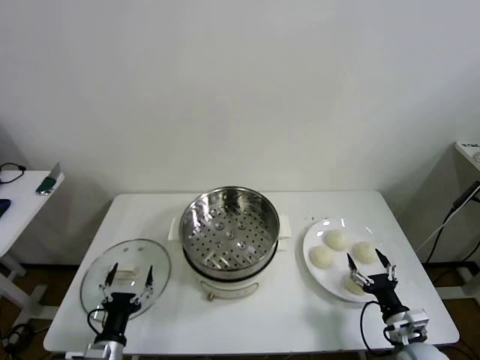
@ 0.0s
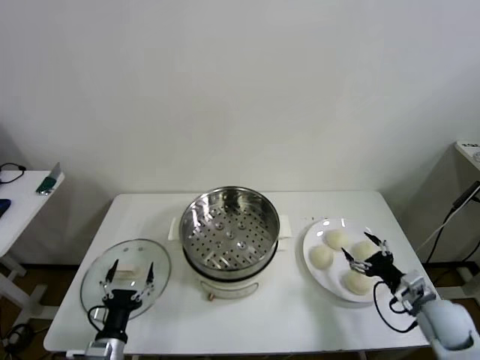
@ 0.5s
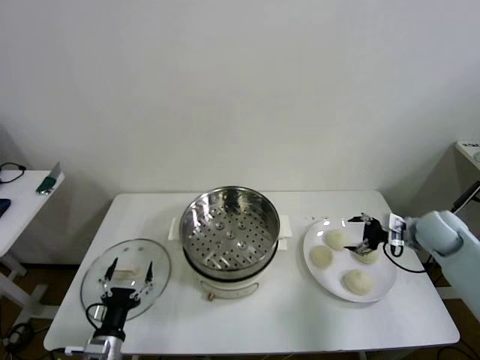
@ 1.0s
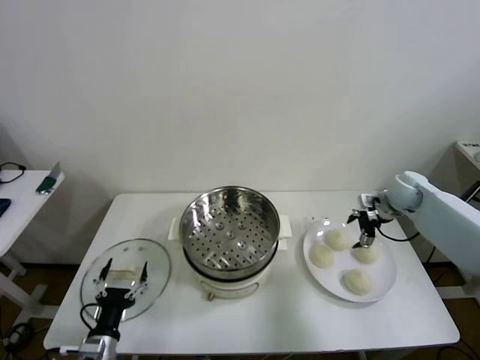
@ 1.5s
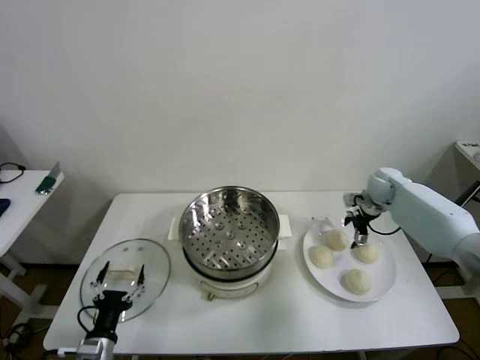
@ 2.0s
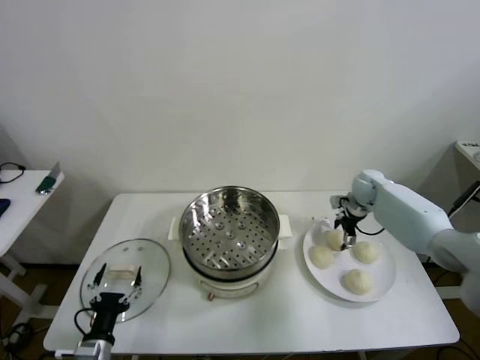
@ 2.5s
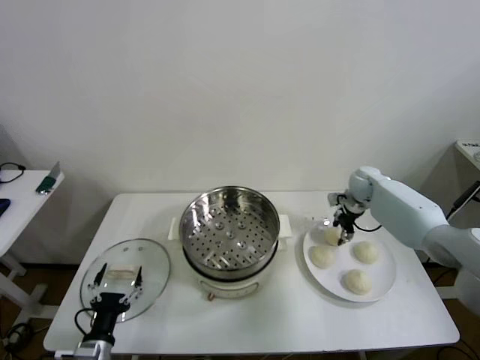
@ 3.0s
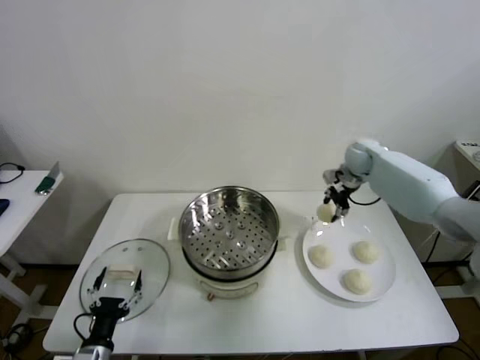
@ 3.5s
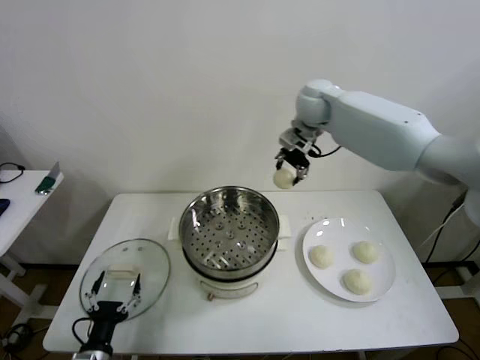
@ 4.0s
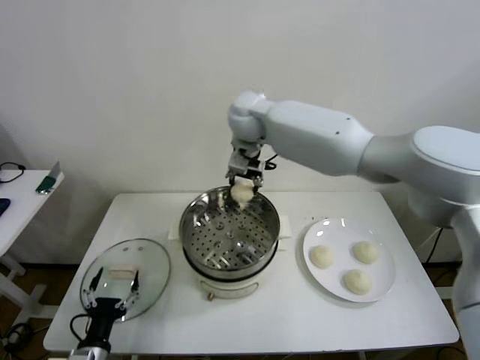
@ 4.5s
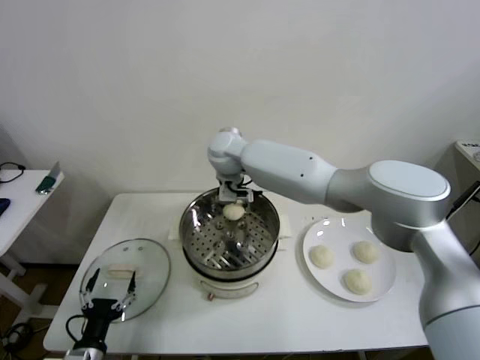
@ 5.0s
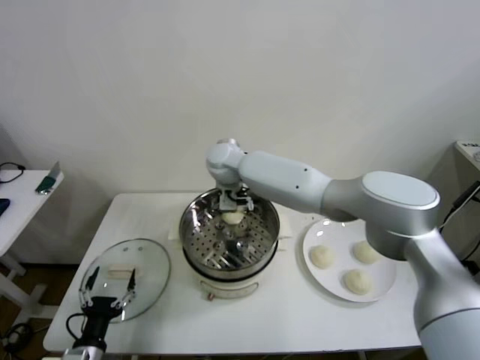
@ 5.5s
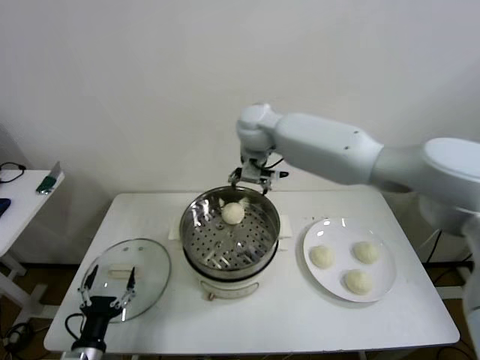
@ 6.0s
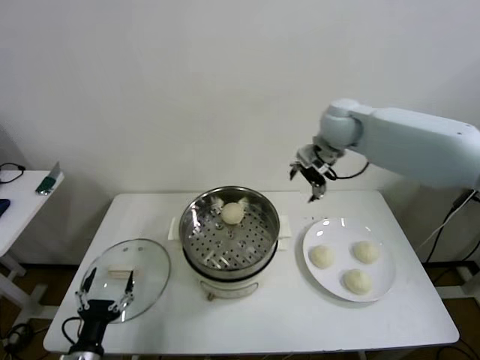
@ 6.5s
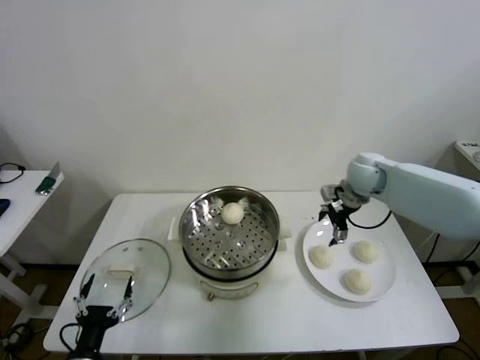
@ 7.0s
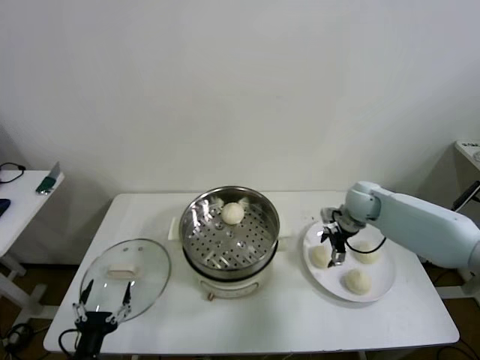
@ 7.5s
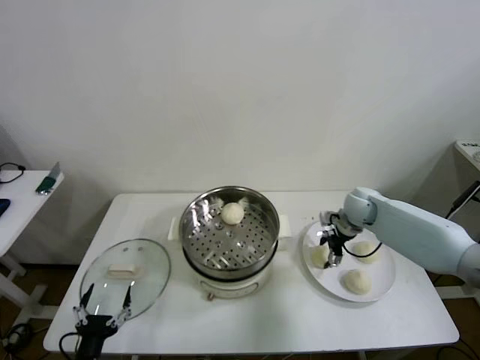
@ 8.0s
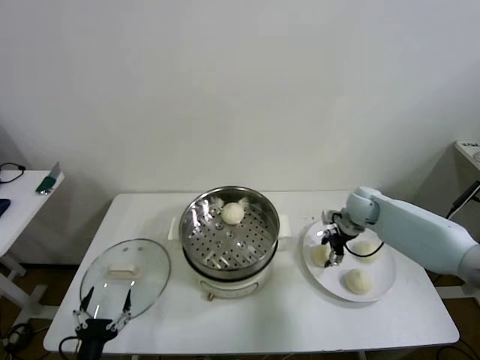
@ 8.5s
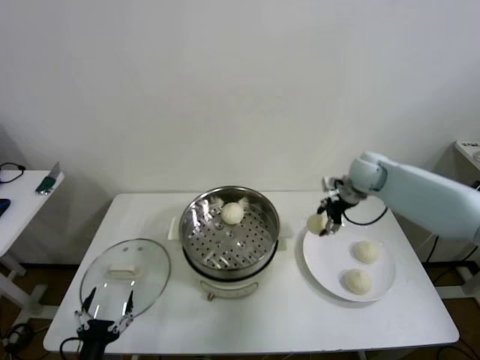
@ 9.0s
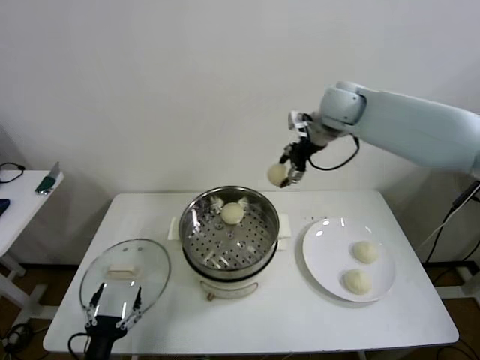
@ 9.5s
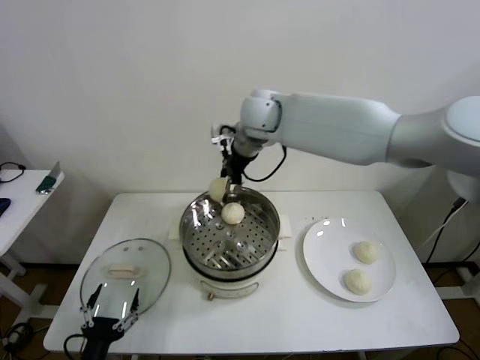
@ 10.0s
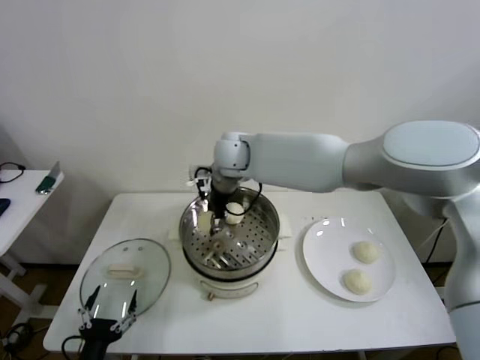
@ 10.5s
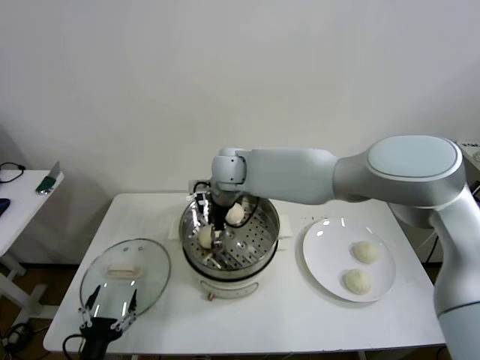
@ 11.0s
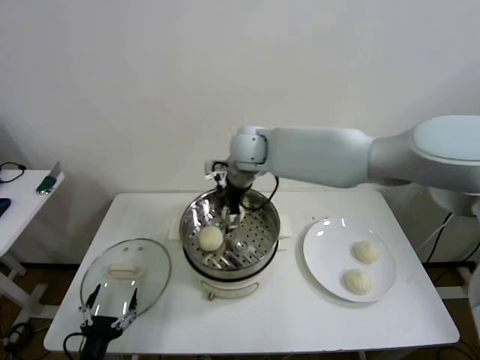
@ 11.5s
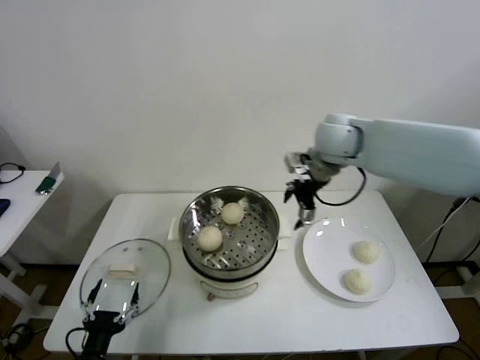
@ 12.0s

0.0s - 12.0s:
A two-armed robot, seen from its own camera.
Step, 0.0s - 2.5s: Grasp the baozi in the plate with right gripper.
Step, 3.0s - 6.0s: Place the baozi on the steamer with right gripper.
Step, 6.5s - 8.0s: Grasp the baozi in the plate with right gripper.
Step, 9.0s - 11.5s: Place the baozi on the steamer with right gripper.
2.0s - 4.0s: The right gripper travels to the left and upward by some 35 cm, and closes its fingers.
4.0s - 6.0s: The right gripper moves to the left, some 5 cm, and opens up.
6.0s - 8.0s: The right gripper is displaced to the right and downward by approximately 35 cm, and closes.
8.0s - 10.0s: The right gripper shifts approximately 40 cm to the left and upward.
10.0s - 12.0s: The right gripper heads to the right, covering some 20 cm, and opens.

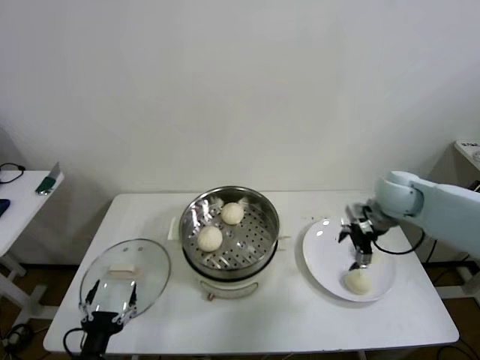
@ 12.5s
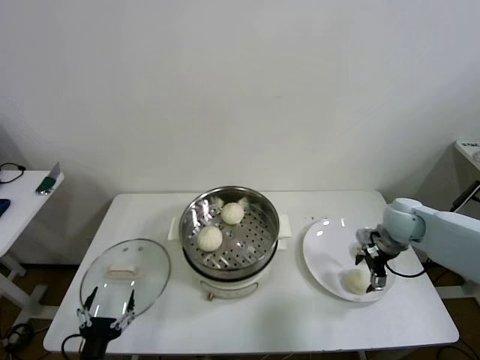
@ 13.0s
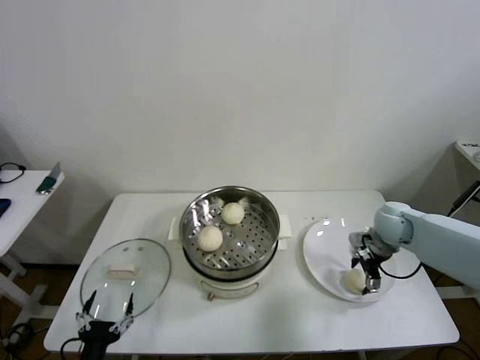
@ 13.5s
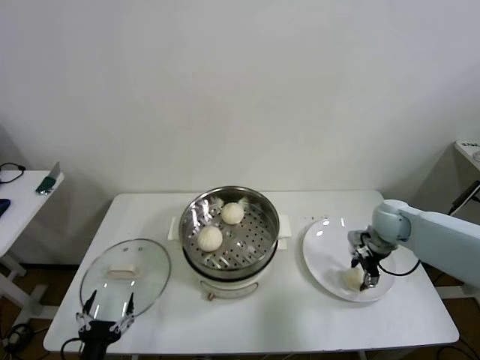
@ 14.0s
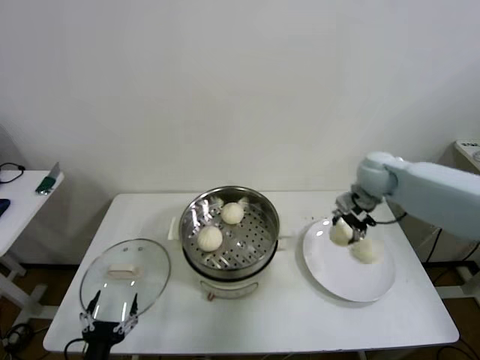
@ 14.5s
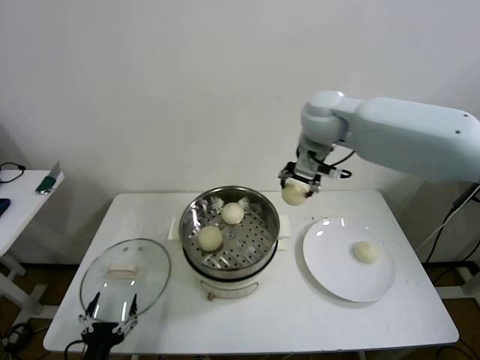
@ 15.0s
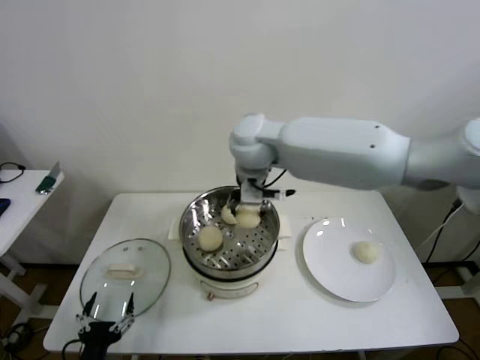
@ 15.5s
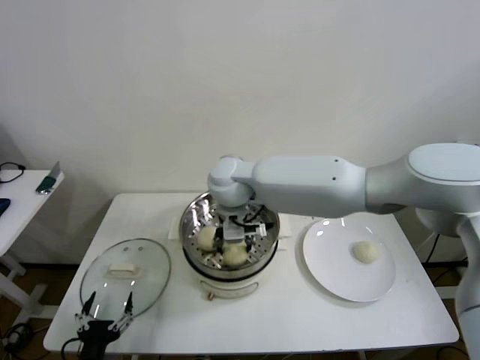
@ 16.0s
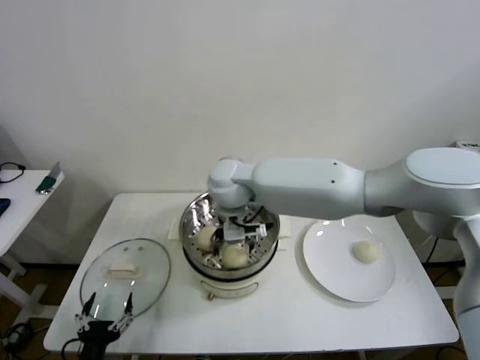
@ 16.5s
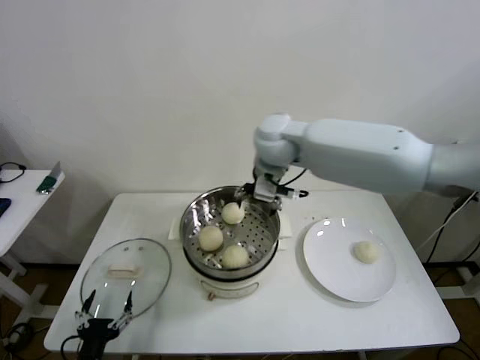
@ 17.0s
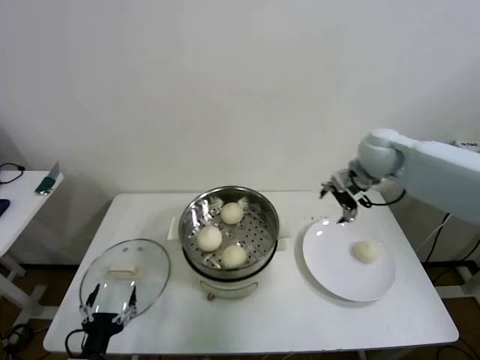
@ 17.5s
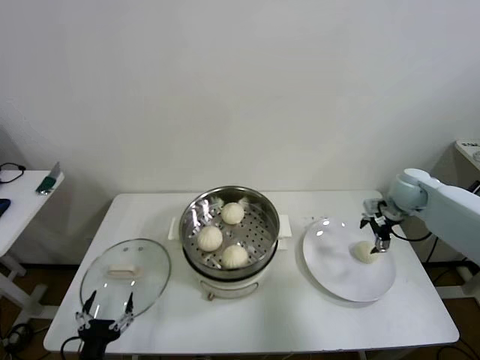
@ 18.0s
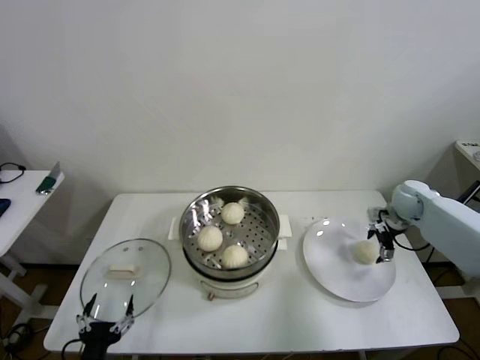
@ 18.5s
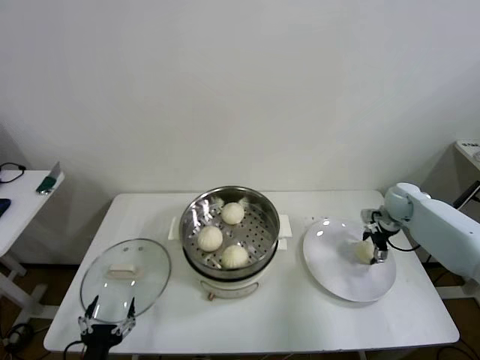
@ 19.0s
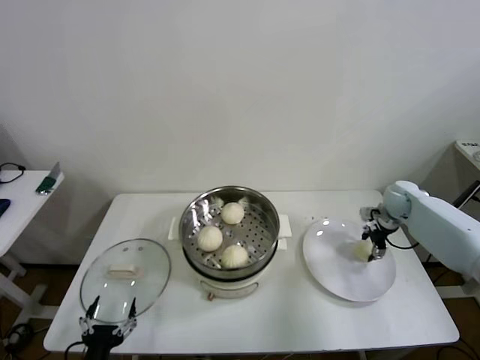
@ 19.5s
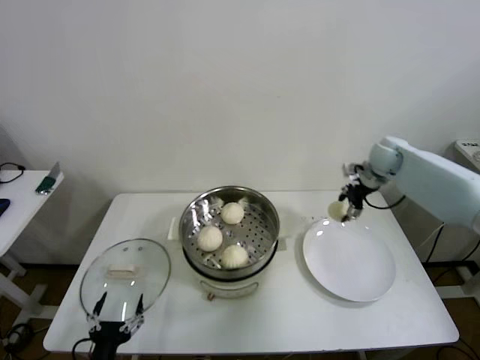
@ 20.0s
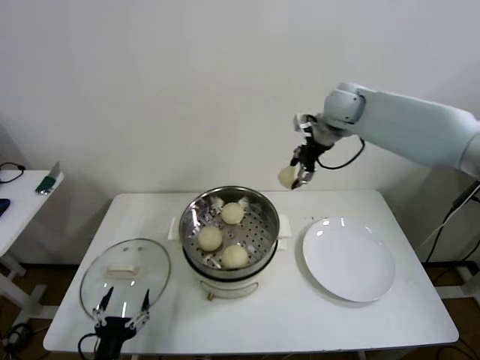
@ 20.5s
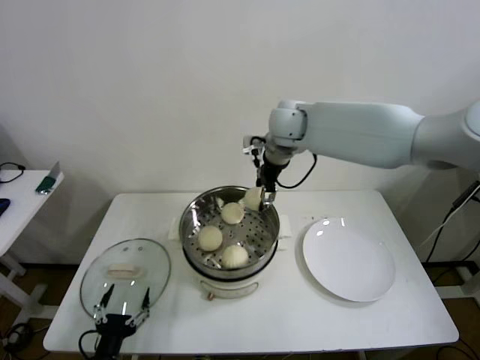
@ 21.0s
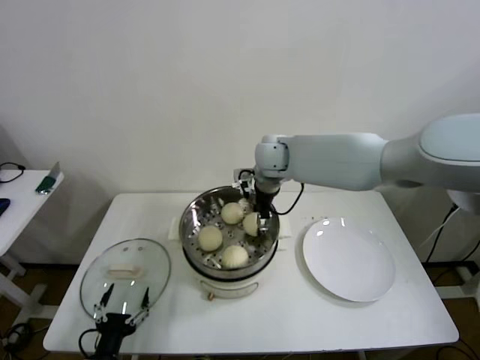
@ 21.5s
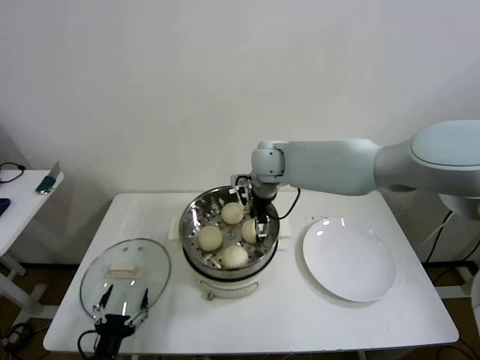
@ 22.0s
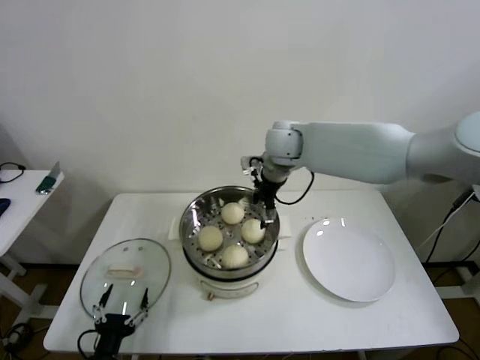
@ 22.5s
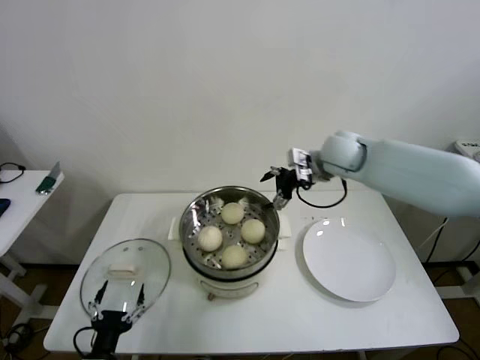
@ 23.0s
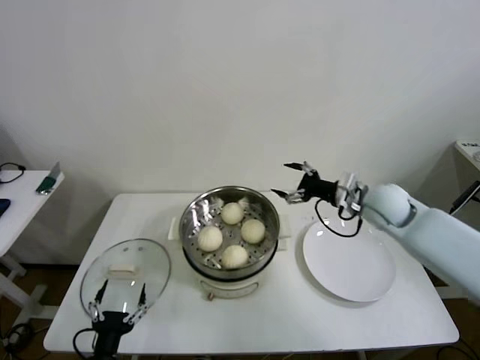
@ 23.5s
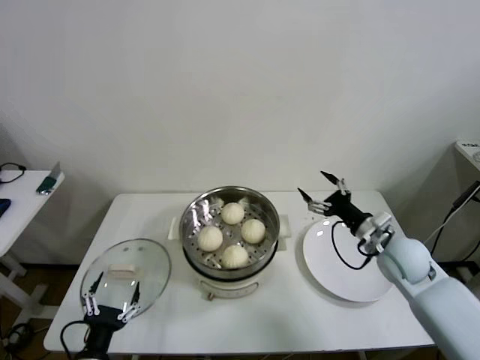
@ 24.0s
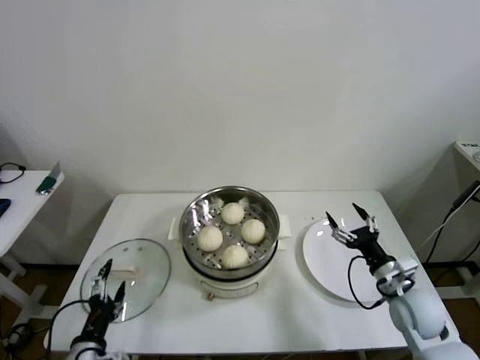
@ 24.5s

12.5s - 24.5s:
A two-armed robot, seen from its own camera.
Step, 12.5s - 14.0s: Grasp the baozi in the plate with right gripper.
Step, 14.5s - 16.5s: Place the baozi on the steamer with right gripper.
Step, 17.0s - 19.0s: Grasp the baozi in the plate with right gripper.
Step, 19.5s - 22.5s: Place the baozi on the steamer with right gripper.
12.5s - 14.5s: The right gripper heads forward and to the left, covering roughly 5 cm, goes downward and returns, approximately 10 cm each way, and closes.
14.5s - 16.5s: The right gripper shifts some 35 cm to the left, and opens.
16.5s - 18.5s: The right gripper is displaced to the right by about 50 cm.
18.5s - 20.5s: The right gripper is displaced upward and to the left by about 30 cm, and closes.
20.5s - 22.5s: The right gripper goes roughly 15 cm to the left and downward, and opens its fingers.
22.5s - 24.5s: The left gripper moves upward, some 5 cm, while the right gripper shifts about 40 cm to the right, backward and downward.

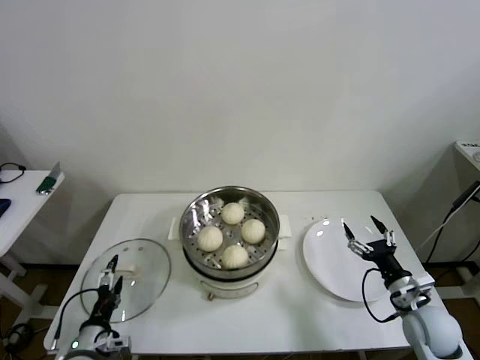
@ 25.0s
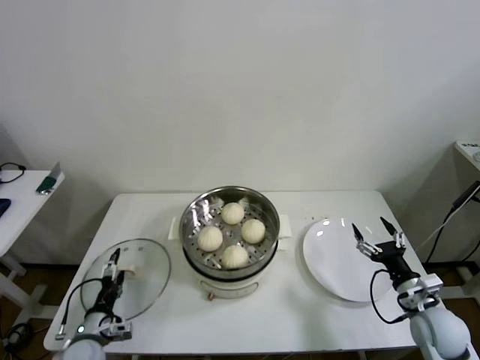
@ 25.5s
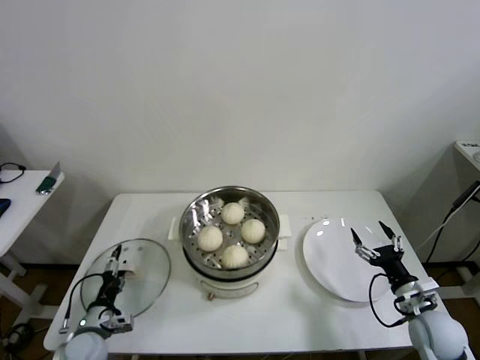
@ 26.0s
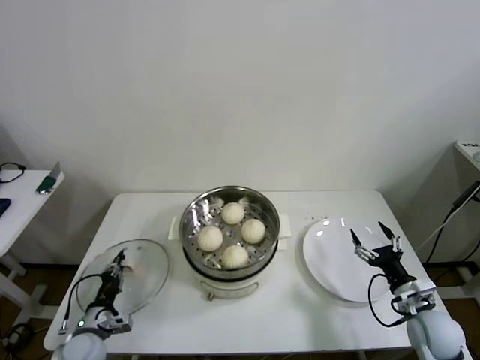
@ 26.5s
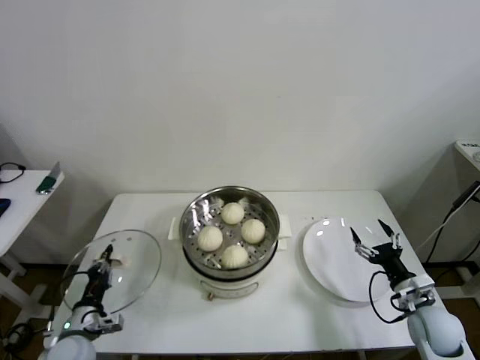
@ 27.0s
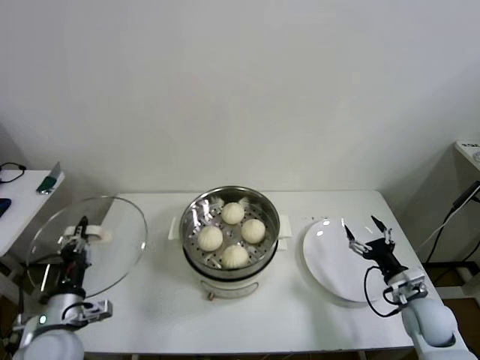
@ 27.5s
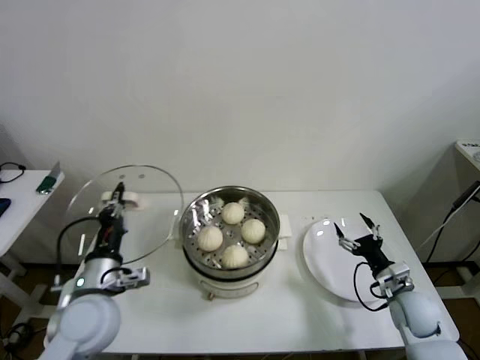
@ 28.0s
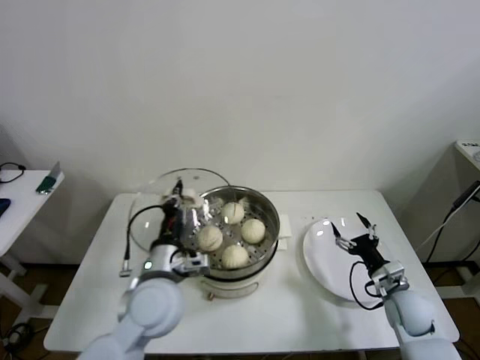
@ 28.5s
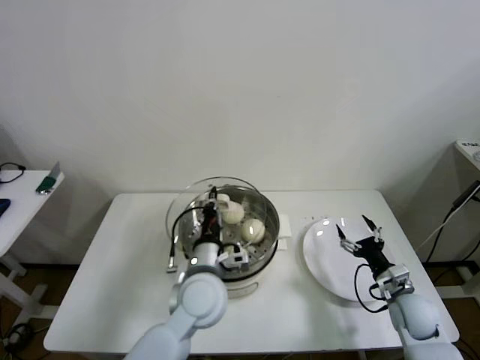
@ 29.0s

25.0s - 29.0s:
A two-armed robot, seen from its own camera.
25.0s - 27.0s: The left gripper shifts by roughly 5 cm, and closes up.
27.0s - 29.0s: The left gripper travels to the right and upward by about 30 cm.
